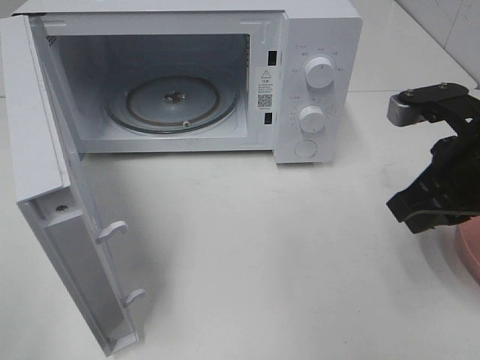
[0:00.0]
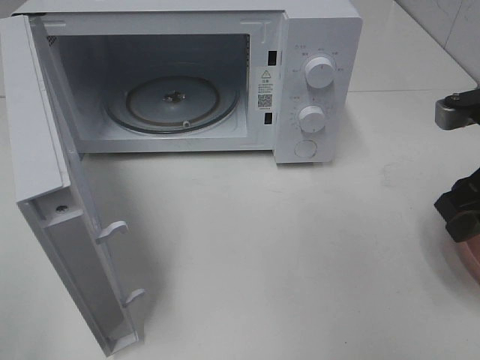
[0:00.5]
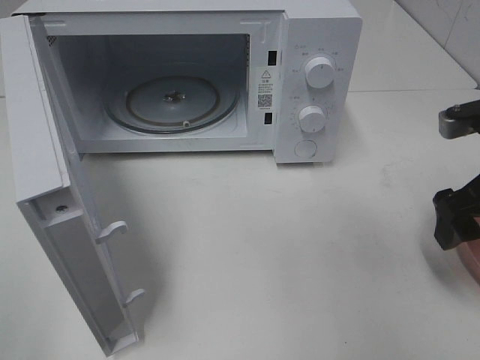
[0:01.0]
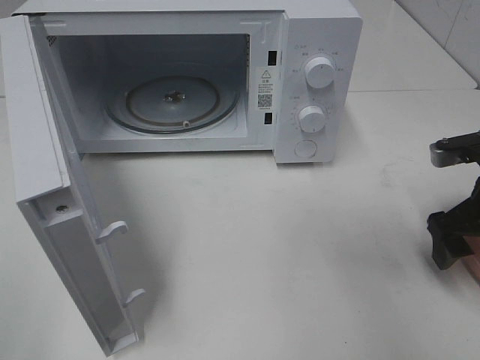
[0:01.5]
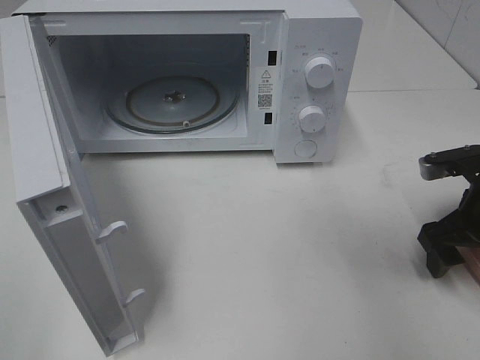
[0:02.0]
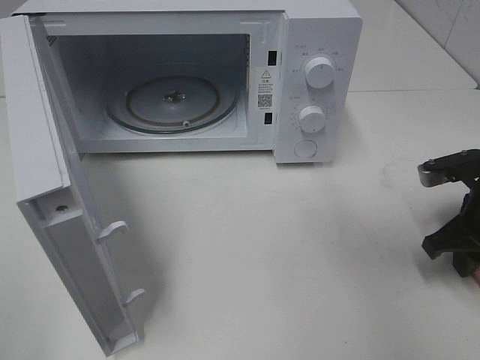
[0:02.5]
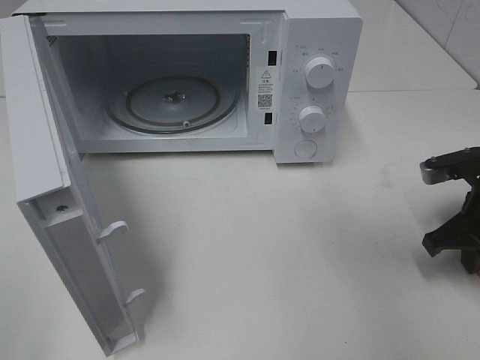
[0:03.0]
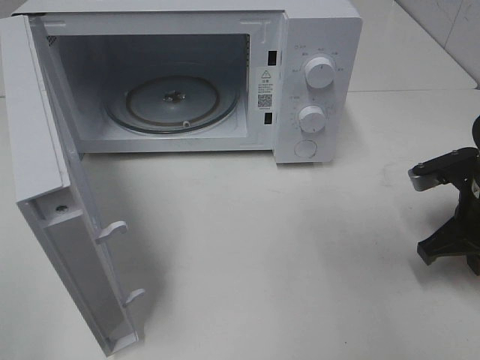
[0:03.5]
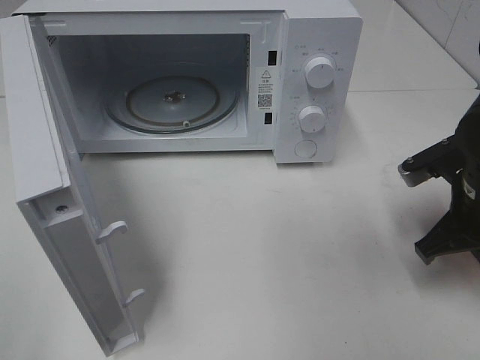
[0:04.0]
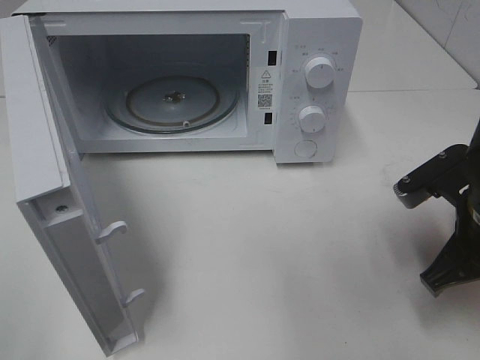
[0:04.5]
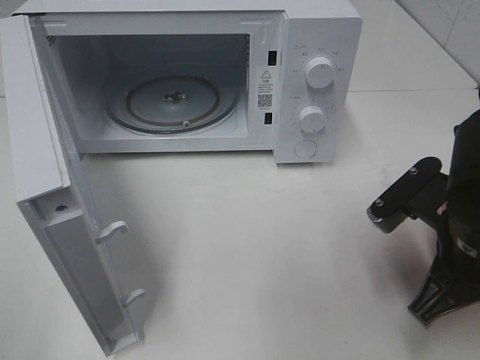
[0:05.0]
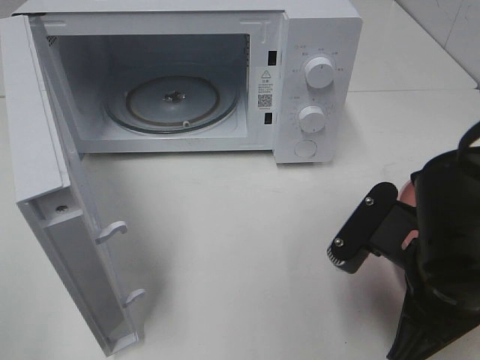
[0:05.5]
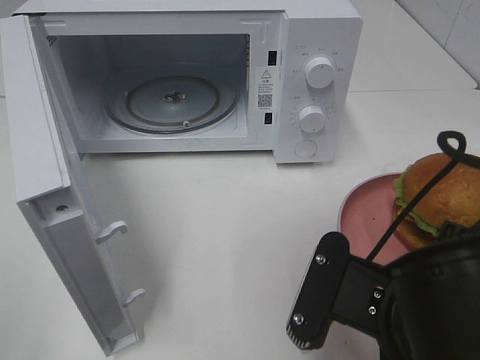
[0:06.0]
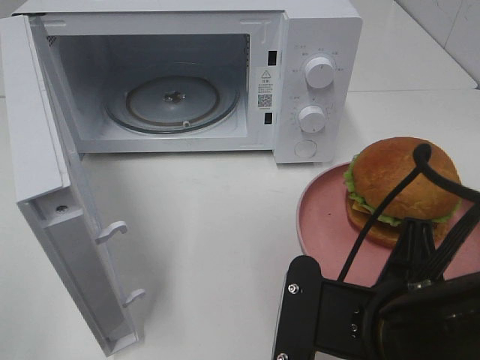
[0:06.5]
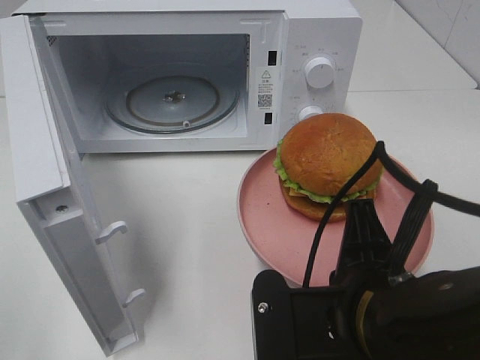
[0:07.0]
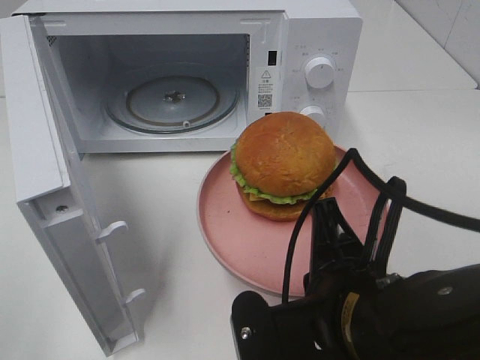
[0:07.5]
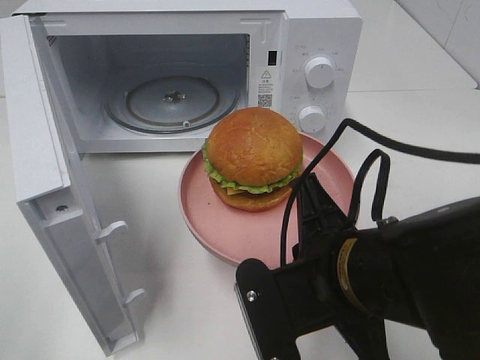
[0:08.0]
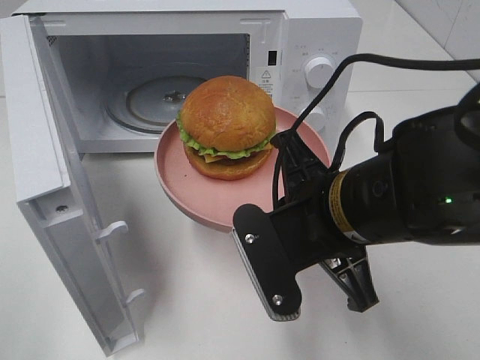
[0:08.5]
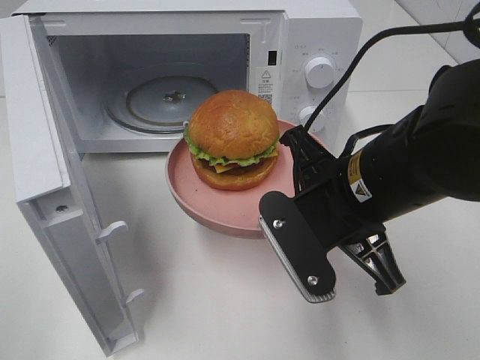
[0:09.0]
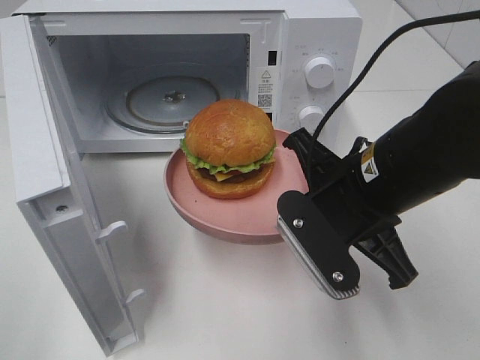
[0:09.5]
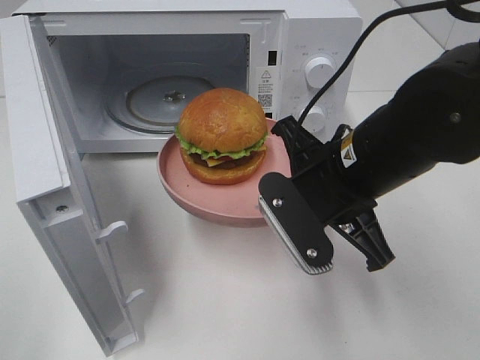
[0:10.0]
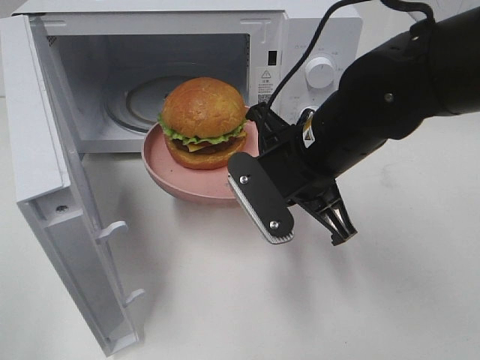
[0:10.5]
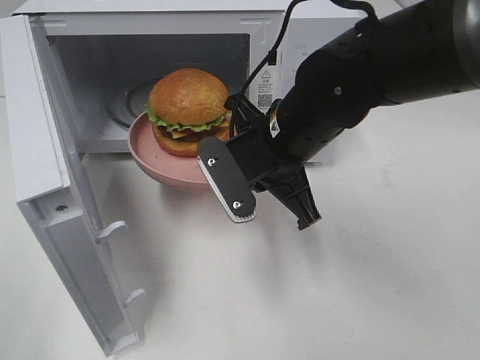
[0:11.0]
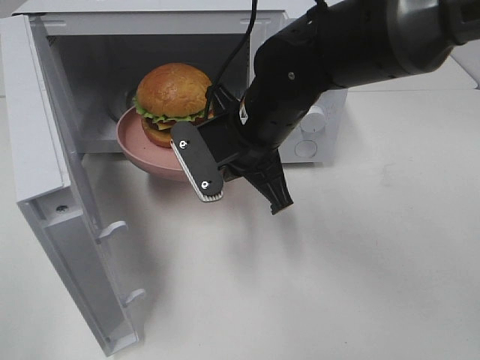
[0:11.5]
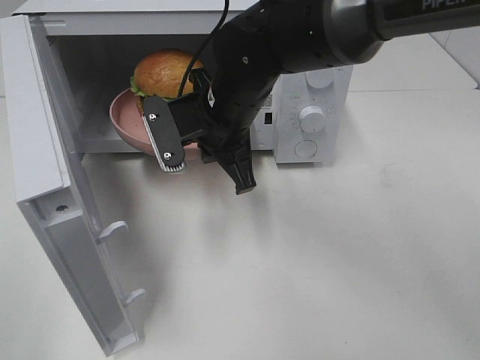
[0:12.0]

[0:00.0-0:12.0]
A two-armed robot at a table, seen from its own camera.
Task of the whole recording: Heat the burger.
Step, 0:00.0 to 0:02.5: Right hand: grab the plate with the hamburger.
0:00.0 to 0:02.0: The right gripper shifts roughly 10 cm downward and to the right, and opens its fingers.
0:02.0 to 0:04.0: The right gripper closes.
0:04.0 to 0:06.0: The right gripper travels backward and to the left by about 20 cm.
0:08.0 to 0:10.0: The right gripper moves forward, roughly 10 cm.
0:10.0 to 0:12.0: The right gripper heads to the left and forward, covering about 15 cm.

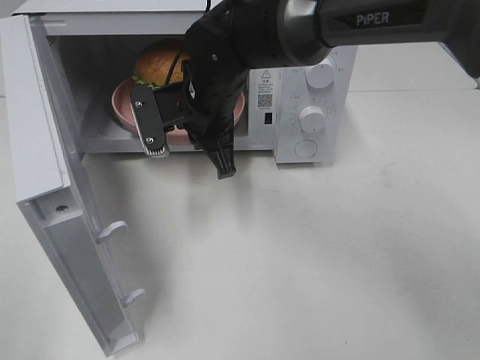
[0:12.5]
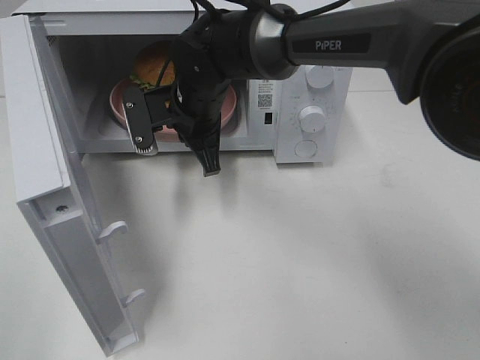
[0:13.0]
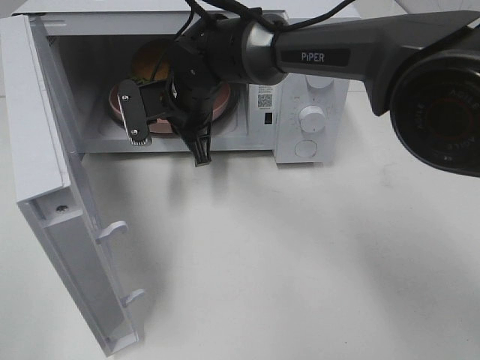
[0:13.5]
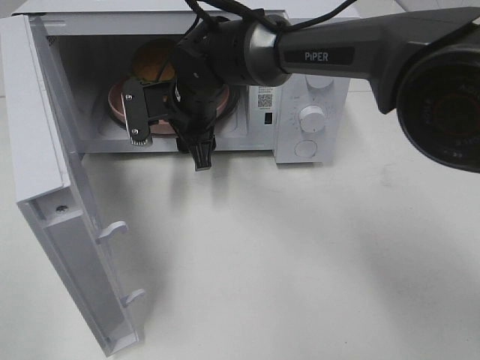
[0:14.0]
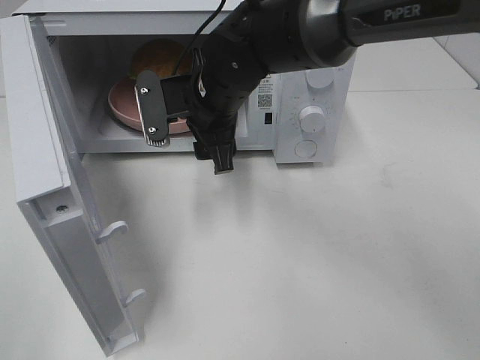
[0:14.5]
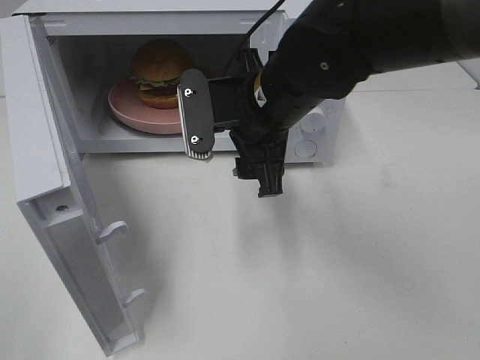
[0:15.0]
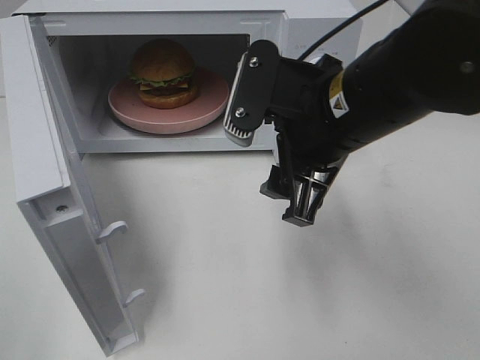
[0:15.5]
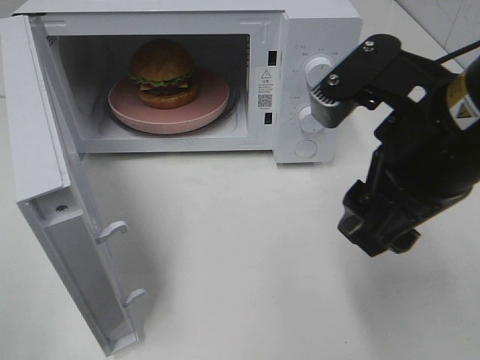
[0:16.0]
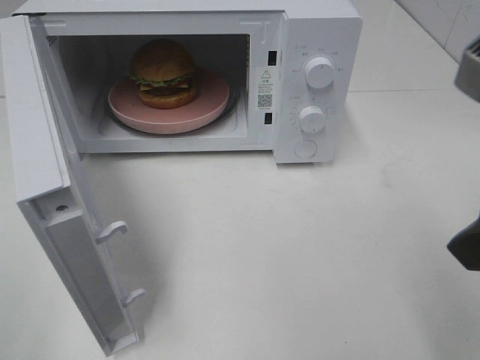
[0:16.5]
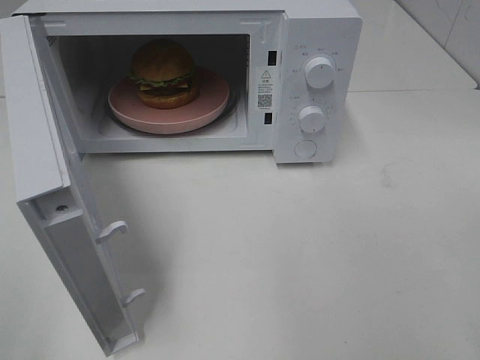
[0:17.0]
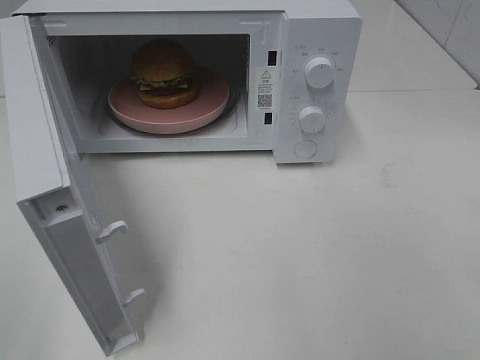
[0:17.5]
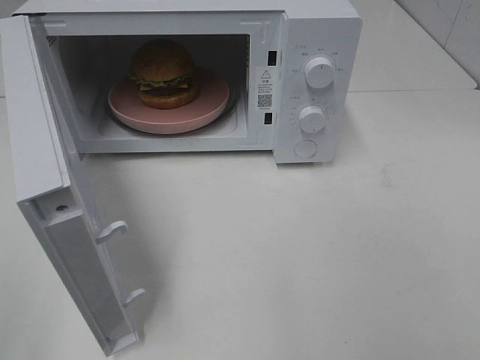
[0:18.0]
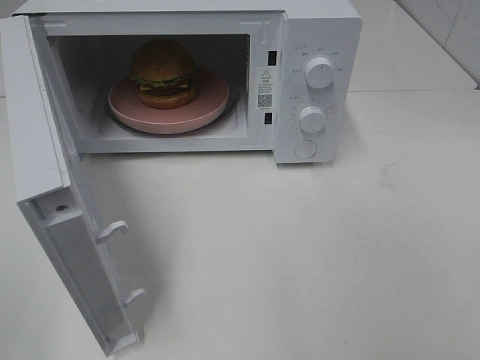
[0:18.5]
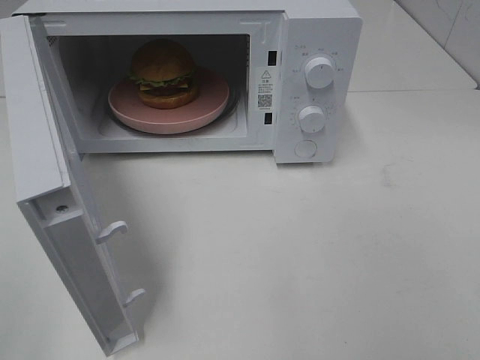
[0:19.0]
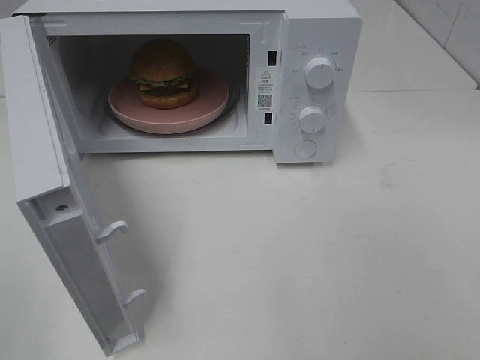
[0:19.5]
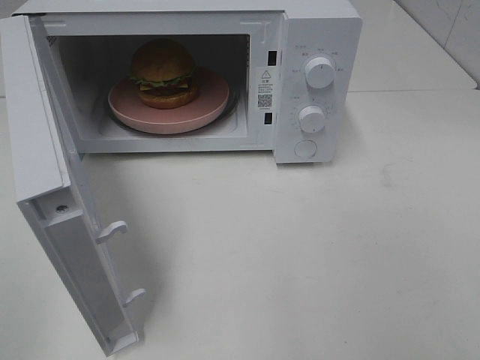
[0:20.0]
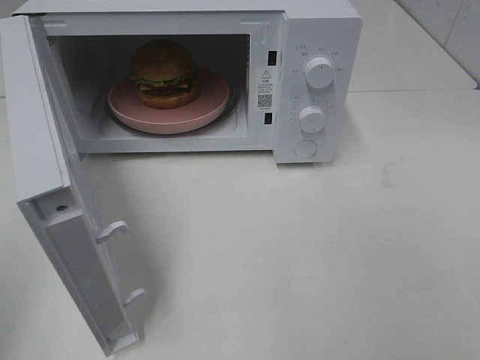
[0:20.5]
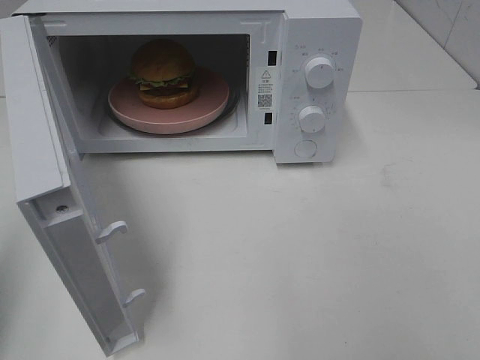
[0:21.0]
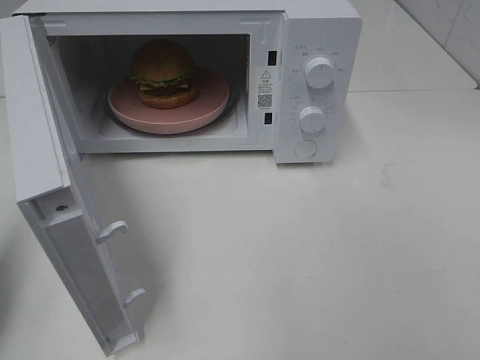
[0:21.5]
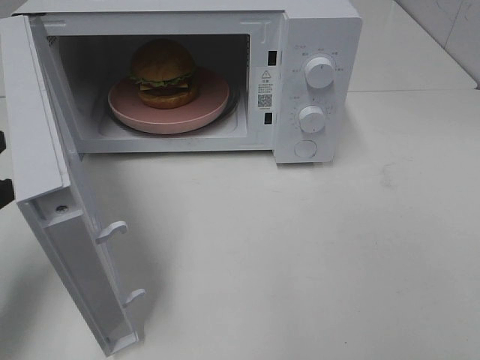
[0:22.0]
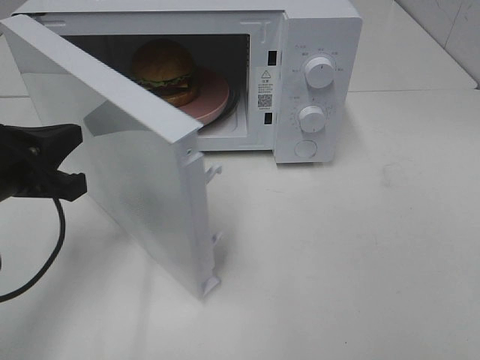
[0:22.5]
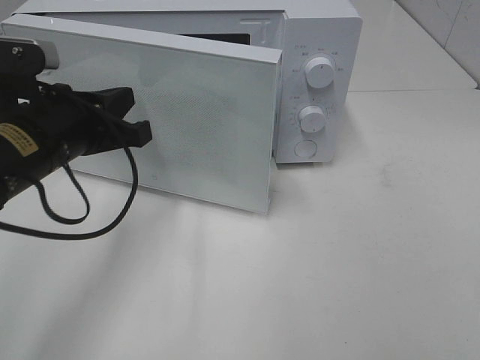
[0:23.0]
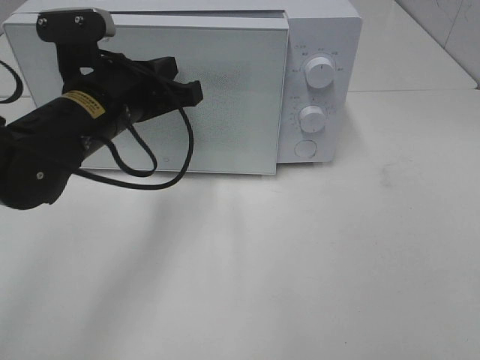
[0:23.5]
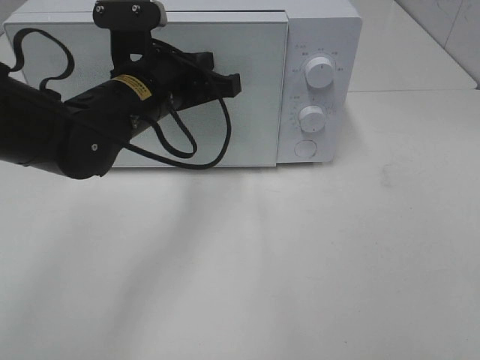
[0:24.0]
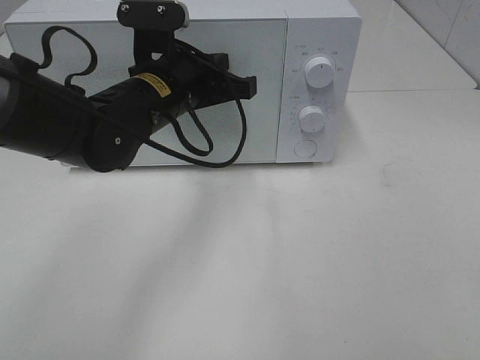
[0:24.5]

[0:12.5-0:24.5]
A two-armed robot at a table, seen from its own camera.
Task of the whole recording: Heat the burger.
0:12.5 to 0:14.5: The right gripper opens its fingers.
0:14.5 to 0:16.5: The right gripper moves backward, to the right and upward, approximately 35 cm.
0:16.5 to 0:18.5: The right gripper moves backward and to the right, about 15 cm.
0:20.5 to 0:22.5: The left gripper travels forward, downward and to the right by about 25 cm.
0:22.5 to 0:24.5: The left gripper heads to the right and forward, covering some 20 cm.

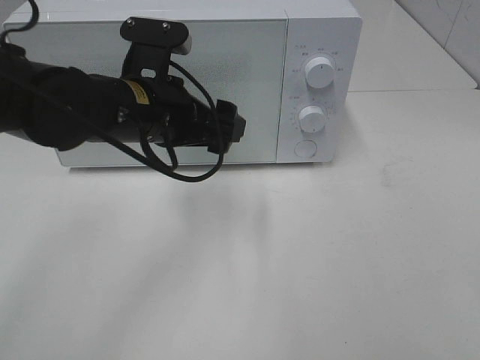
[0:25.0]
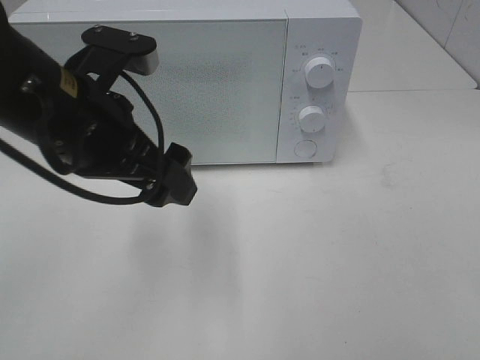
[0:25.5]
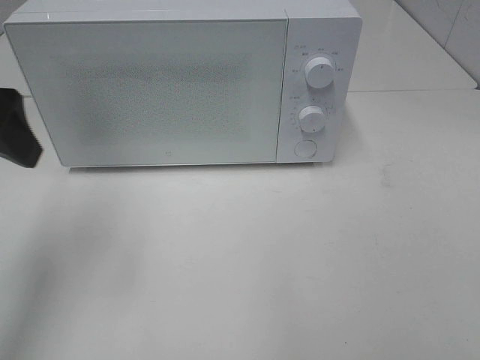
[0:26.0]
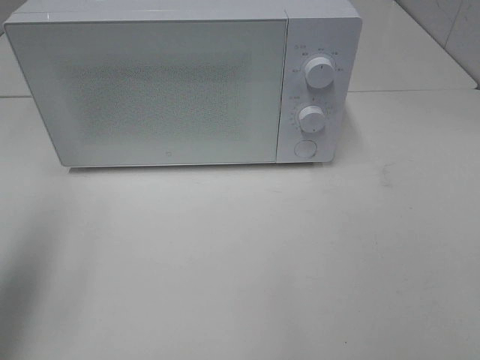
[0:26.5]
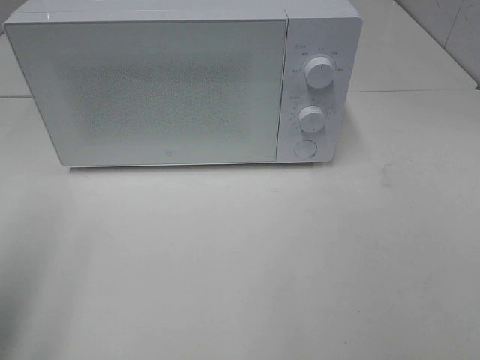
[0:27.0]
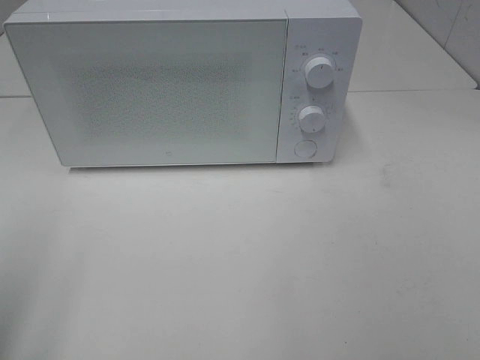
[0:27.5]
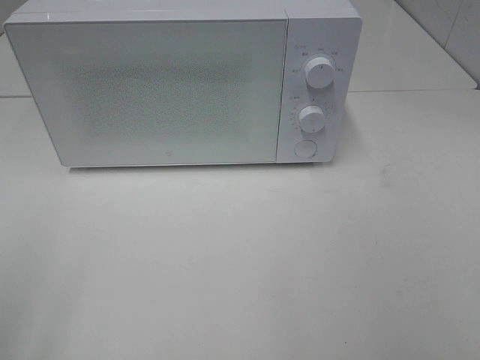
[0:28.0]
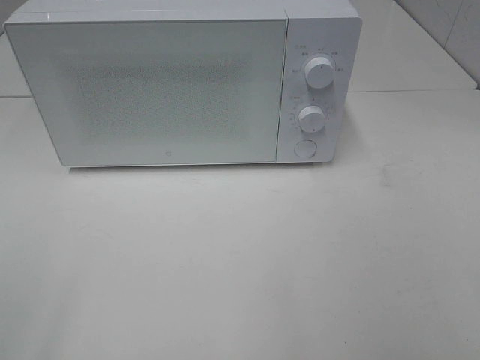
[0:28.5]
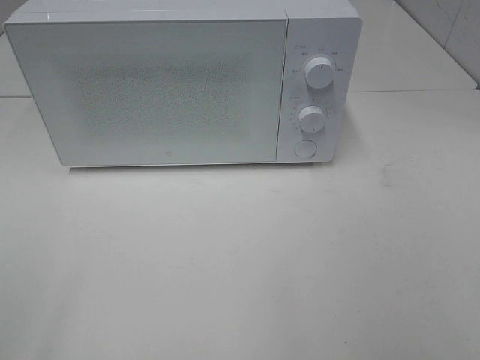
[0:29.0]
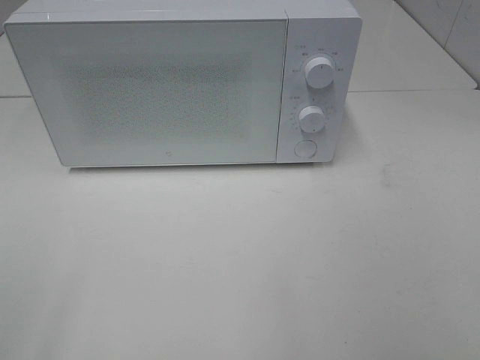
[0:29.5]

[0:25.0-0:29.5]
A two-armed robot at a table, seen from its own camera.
Task of the whole recording: Heat the burger.
0:25.0 to 0:27.0: The left gripper travels to the left and backward by roughly 30 cm.
0:27.0 to 0:29.5: The left gripper heads backward, covering about 10 cm.
